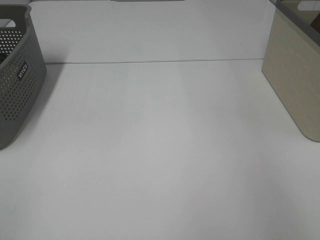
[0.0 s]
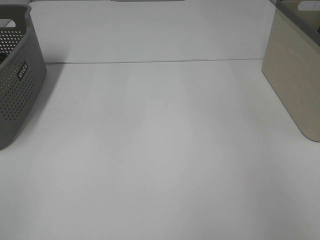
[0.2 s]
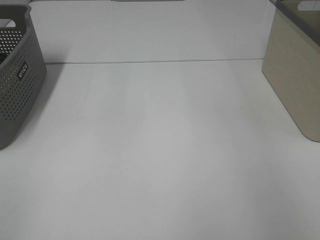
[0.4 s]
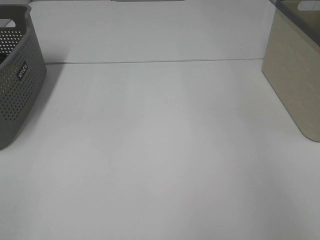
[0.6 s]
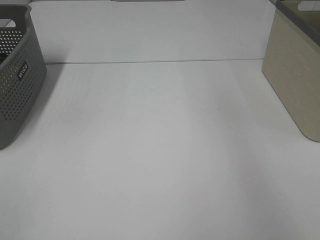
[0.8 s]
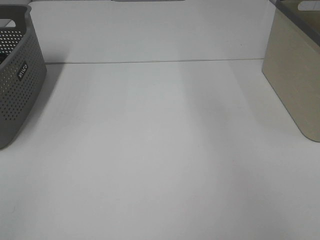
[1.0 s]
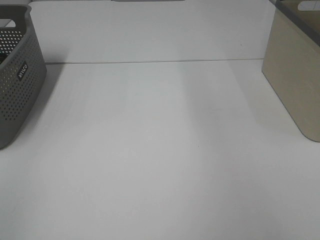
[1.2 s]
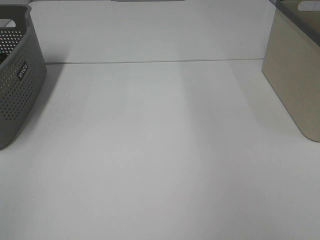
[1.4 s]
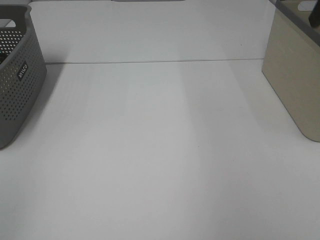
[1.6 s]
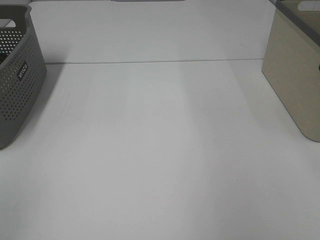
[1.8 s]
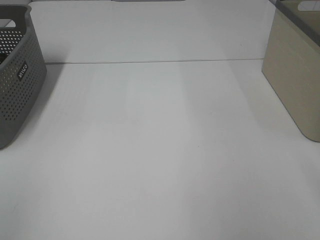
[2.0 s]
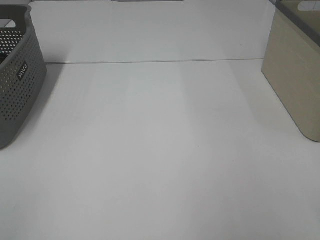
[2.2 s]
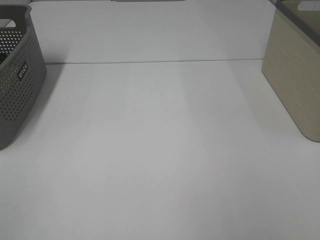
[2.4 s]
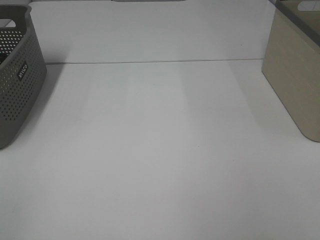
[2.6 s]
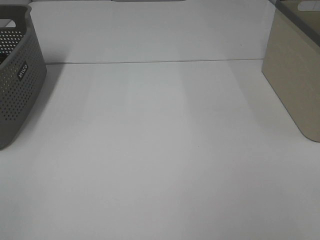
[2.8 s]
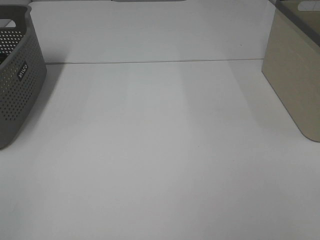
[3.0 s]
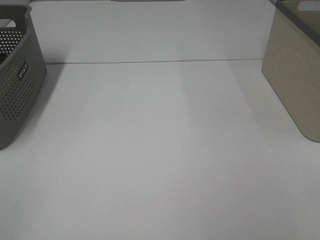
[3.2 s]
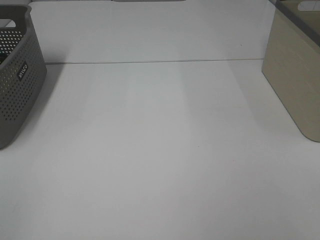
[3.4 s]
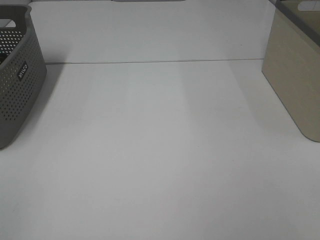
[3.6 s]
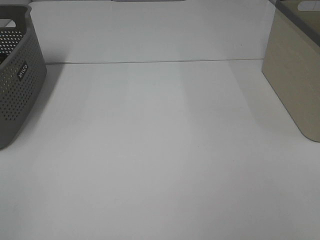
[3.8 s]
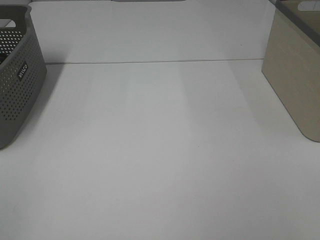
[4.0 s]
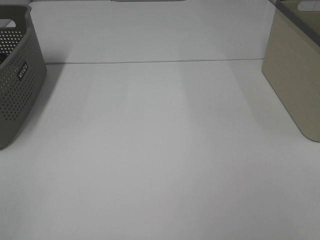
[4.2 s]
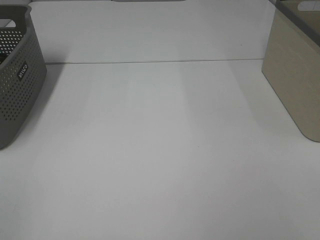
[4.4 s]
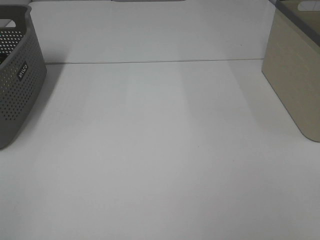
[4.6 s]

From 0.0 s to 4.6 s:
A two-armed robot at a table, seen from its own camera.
From 3.0 s to 4.6 s: The two grippers keep their place.

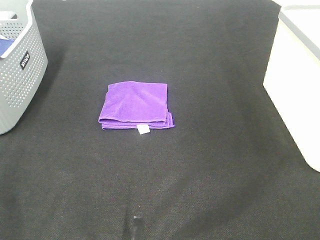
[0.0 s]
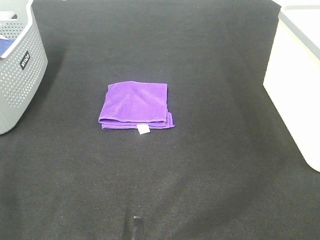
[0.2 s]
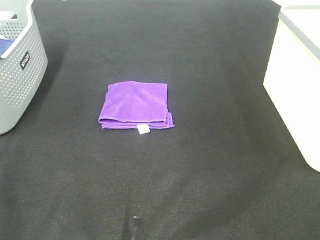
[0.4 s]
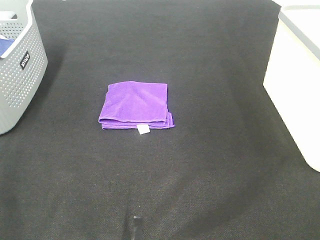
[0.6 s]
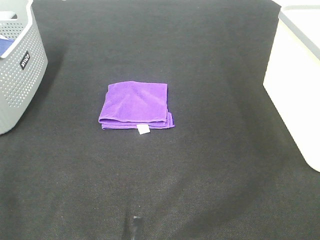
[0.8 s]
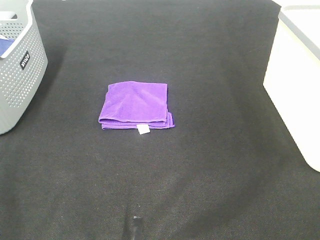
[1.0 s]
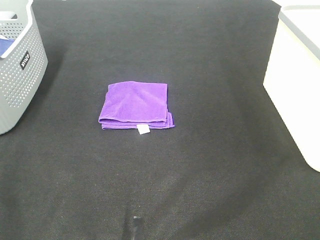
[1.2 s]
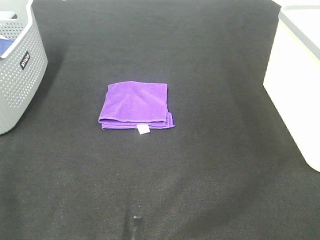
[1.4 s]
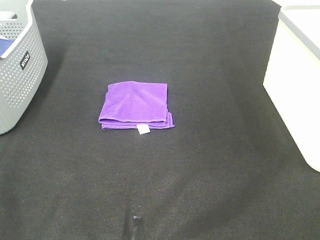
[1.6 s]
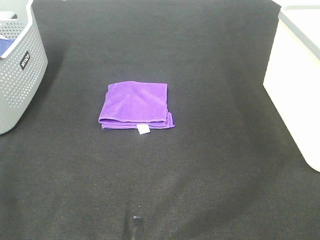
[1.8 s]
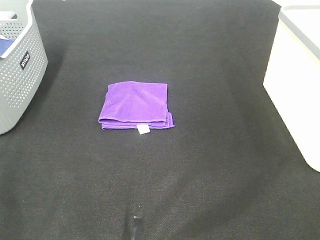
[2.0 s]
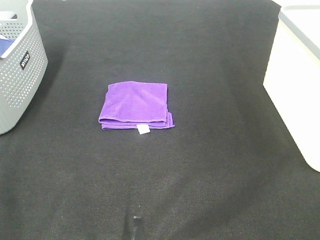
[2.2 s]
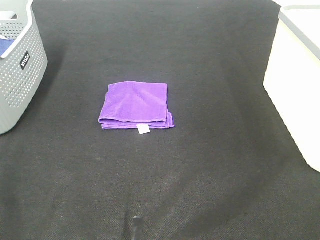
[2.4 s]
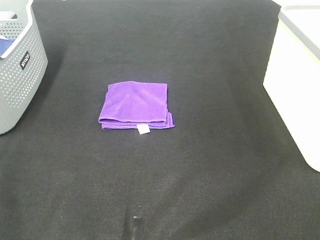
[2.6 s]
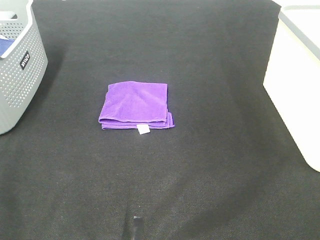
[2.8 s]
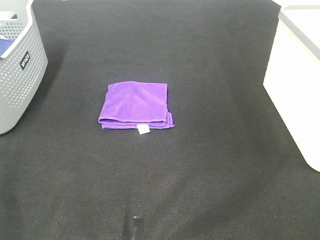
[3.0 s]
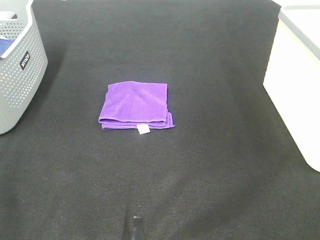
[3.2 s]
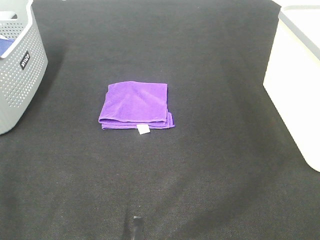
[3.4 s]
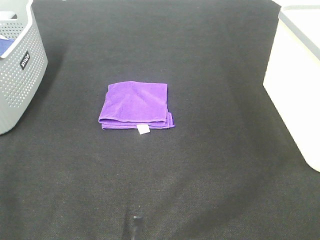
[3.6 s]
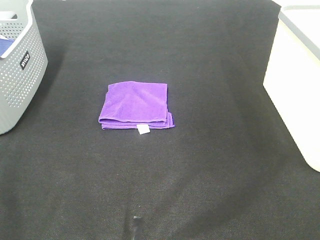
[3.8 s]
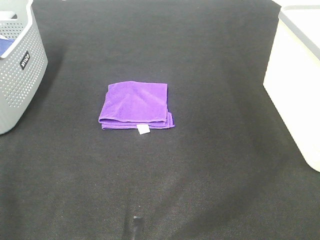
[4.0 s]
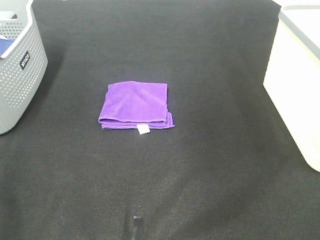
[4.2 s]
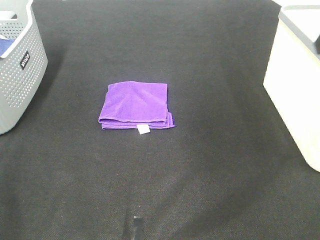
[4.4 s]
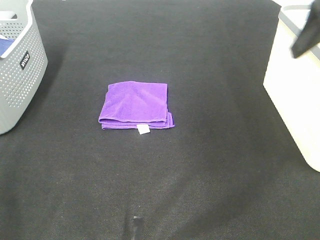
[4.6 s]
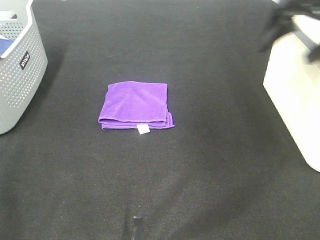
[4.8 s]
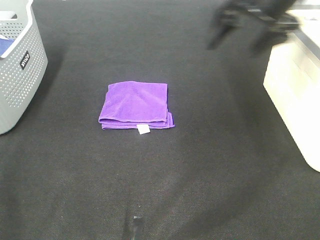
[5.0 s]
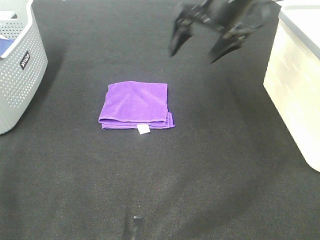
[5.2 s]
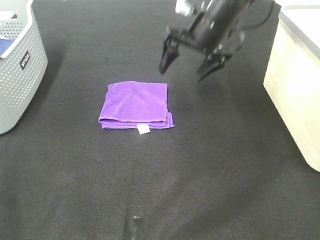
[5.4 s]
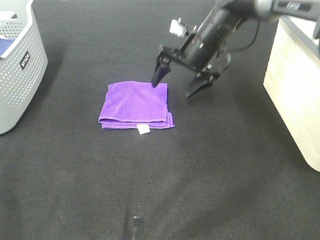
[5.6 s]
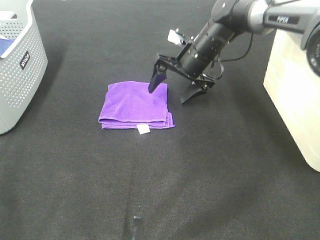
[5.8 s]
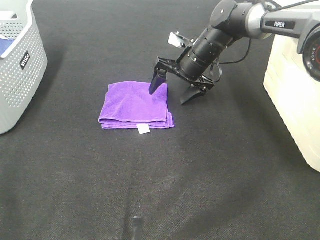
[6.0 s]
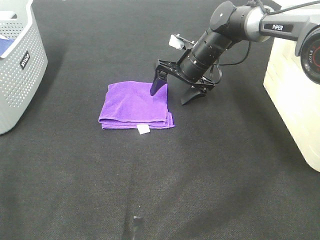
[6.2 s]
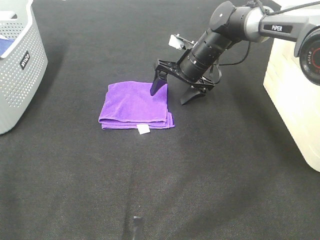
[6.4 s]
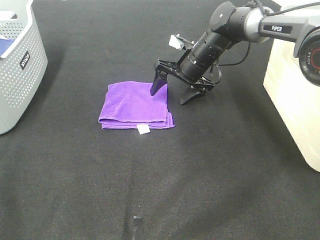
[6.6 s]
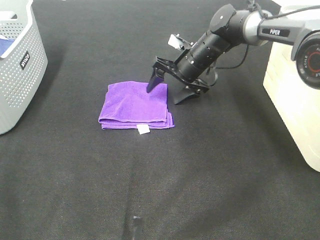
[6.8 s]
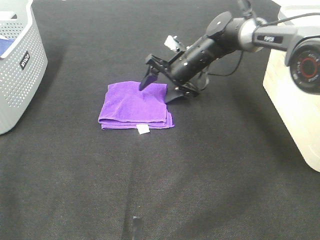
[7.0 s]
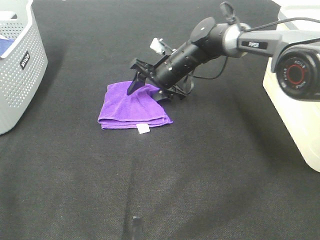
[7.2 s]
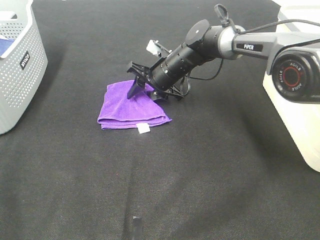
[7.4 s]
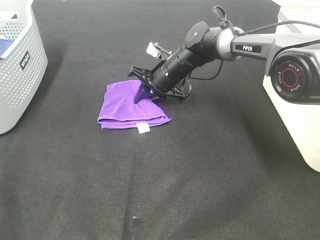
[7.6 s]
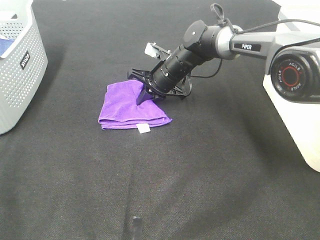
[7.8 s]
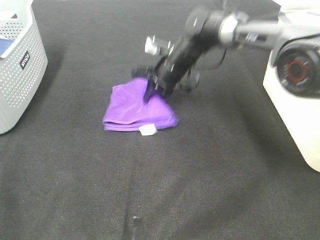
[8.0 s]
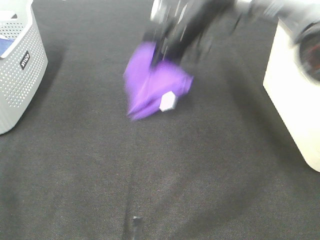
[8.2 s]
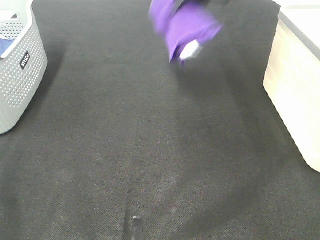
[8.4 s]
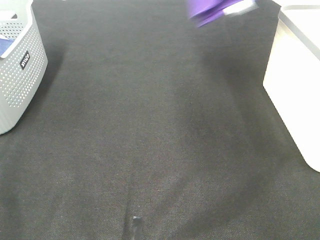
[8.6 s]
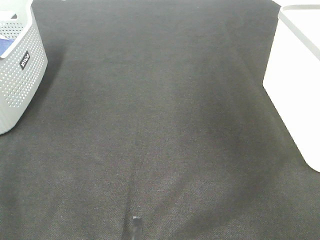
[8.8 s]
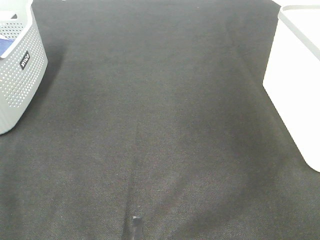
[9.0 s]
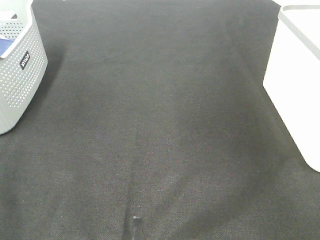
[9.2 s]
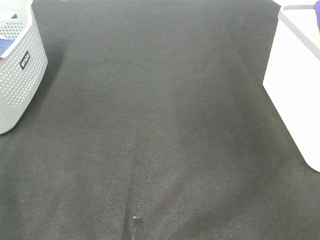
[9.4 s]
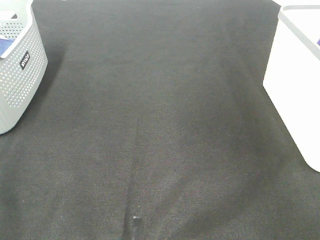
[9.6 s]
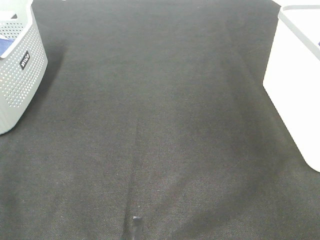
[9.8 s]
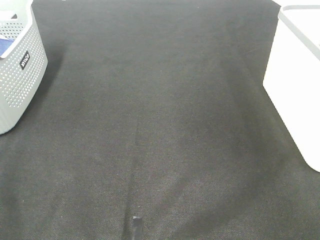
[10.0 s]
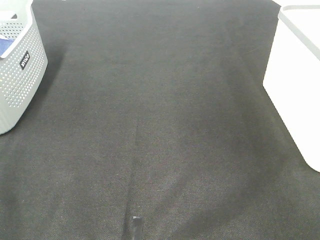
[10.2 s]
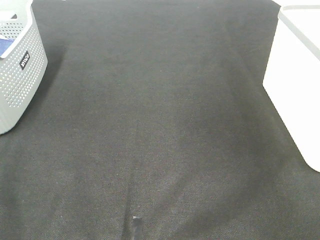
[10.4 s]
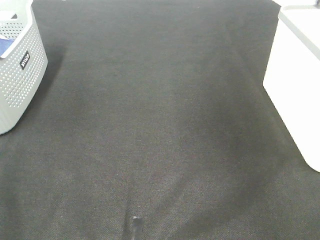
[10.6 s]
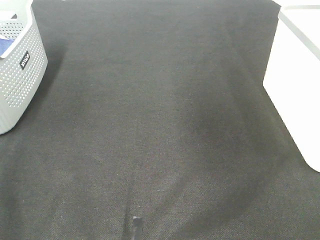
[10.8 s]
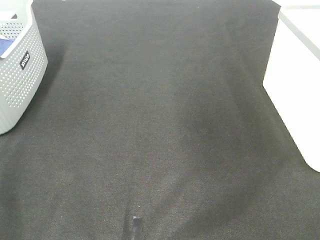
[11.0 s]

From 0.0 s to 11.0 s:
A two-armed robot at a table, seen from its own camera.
Step, from 0.0 s to 7.6 s: Right hand: grab the folded purple towel.
Step, from 7.8 s to 10.0 s: Right hand: place the purple towel in right basket.
From 0.0 s to 3.2 s: Both grippers stay put.
From 3.2 s to 4.8 s: The right gripper is displaced forward by about 35 cm.
From 4.8 s to 6.2 s: The right gripper travels downward, to the left and forward by some 30 cm.
From 6.2 s to 7.8 s: The right gripper is displaced to the left by approximately 5 cm, and closes up.
From 7.8 s to 9.4 s: The right gripper is displaced to the right and upward by about 50 cm.

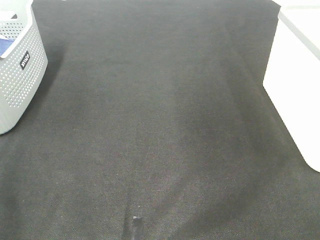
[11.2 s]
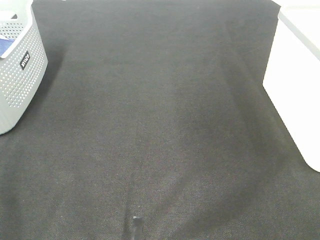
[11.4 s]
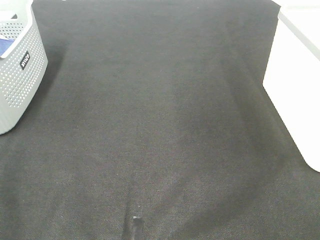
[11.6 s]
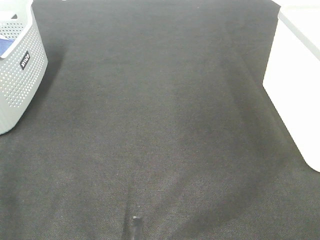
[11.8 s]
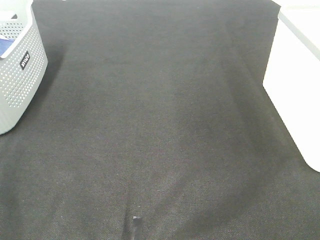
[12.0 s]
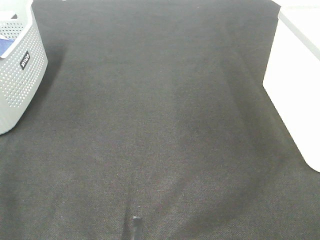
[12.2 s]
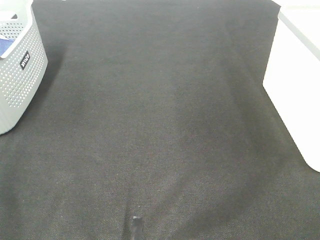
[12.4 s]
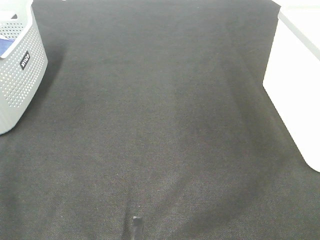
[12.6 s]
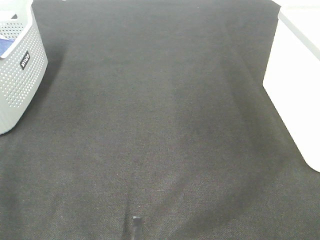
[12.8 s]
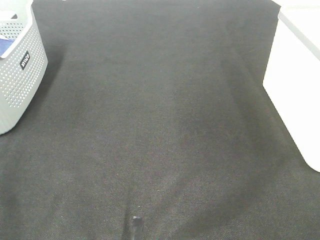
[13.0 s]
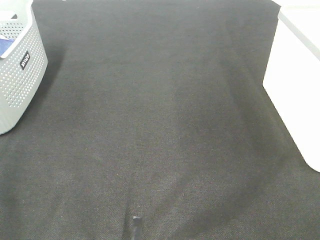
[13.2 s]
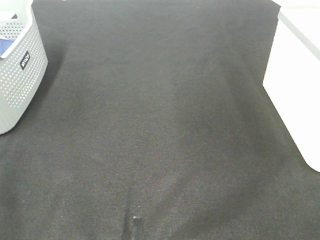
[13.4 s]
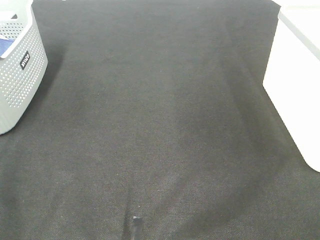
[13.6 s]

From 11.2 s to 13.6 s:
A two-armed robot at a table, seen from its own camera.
From 12.4 s to 13.6 s: Neither gripper changes place.

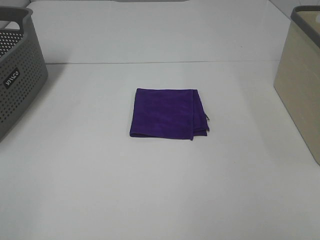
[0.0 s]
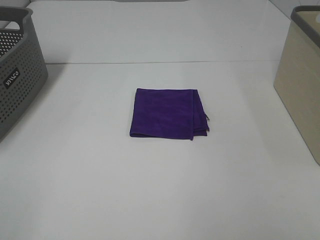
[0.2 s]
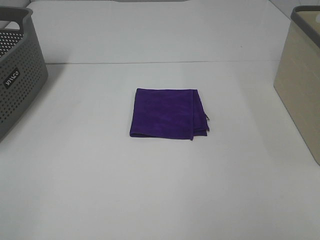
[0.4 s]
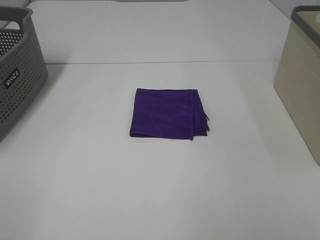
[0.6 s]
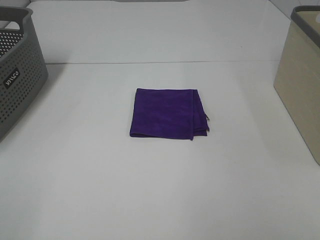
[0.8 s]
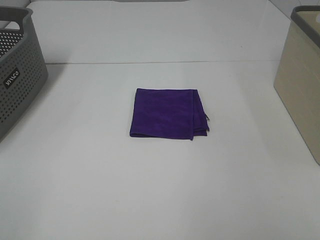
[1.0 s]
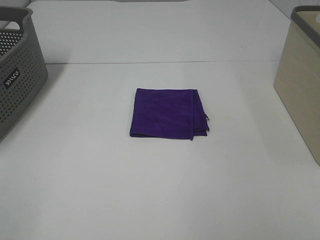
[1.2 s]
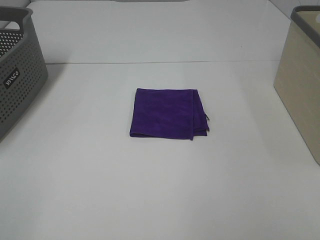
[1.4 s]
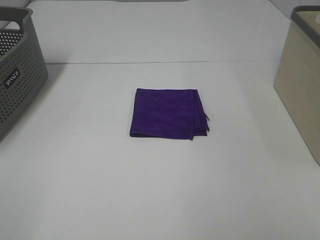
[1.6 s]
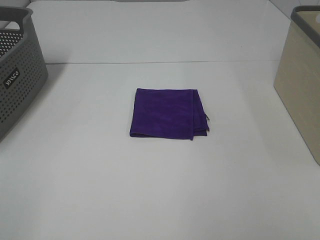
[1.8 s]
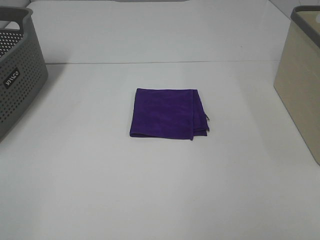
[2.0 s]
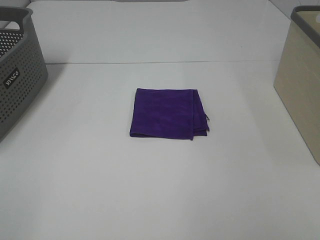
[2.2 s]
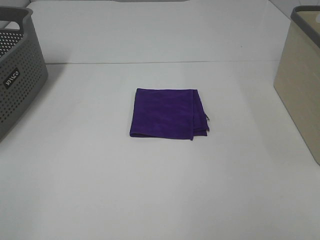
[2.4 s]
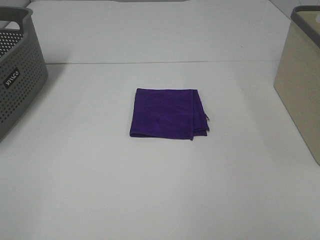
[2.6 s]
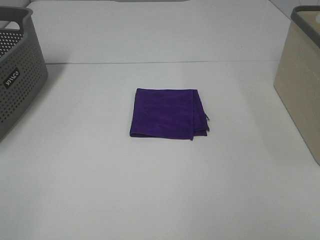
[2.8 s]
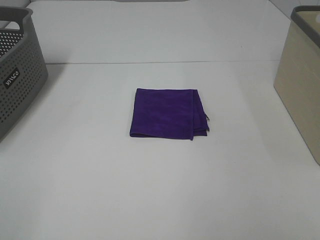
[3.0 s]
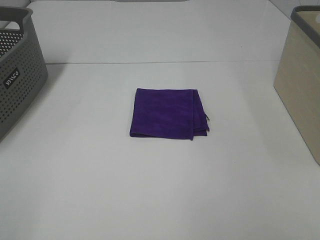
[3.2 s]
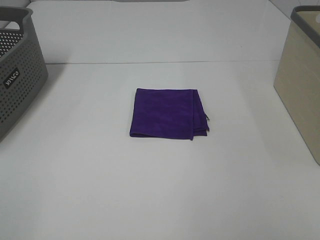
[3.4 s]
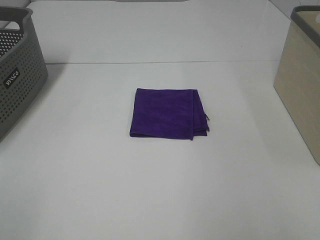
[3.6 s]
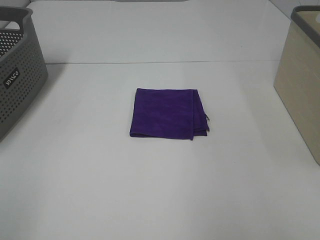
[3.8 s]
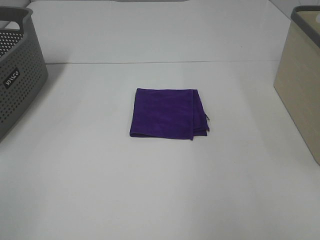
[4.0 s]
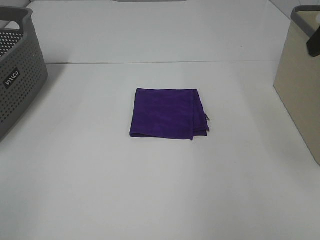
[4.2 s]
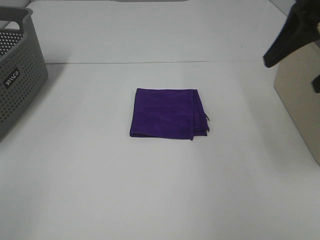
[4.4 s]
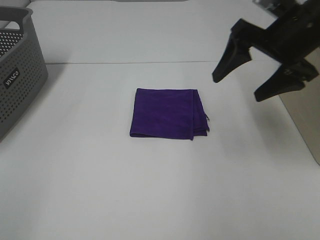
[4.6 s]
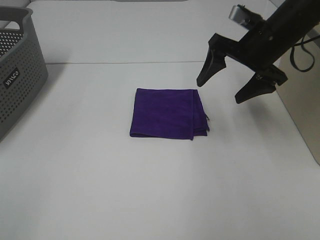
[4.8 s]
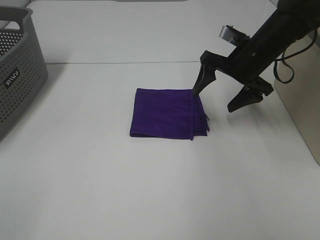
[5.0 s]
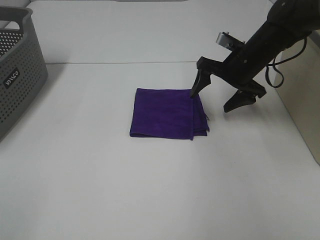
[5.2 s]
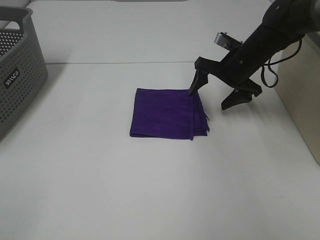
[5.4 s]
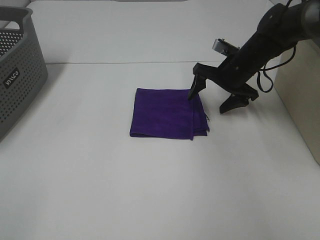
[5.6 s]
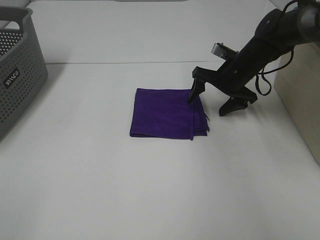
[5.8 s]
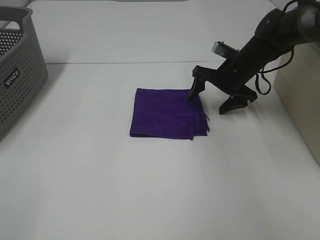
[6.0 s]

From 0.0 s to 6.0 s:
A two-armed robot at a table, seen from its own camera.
From 0.0 s to 3.0 s: Both grippers stay about where they are.
From 3.0 s to 4.4 s: The right gripper is displaced forward by some 25 cm.
From 4.4 s to 6.0 s: The right gripper shifts roughly 25 cm downward and forward.
